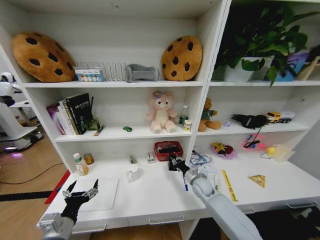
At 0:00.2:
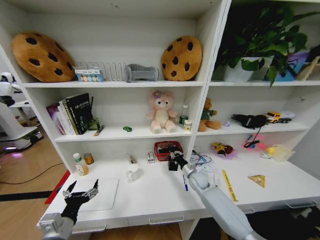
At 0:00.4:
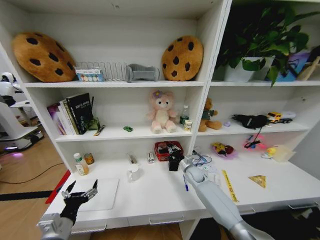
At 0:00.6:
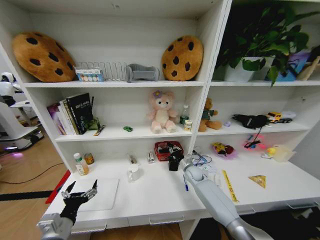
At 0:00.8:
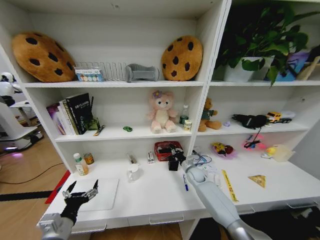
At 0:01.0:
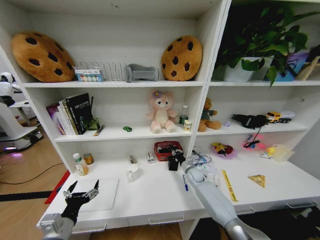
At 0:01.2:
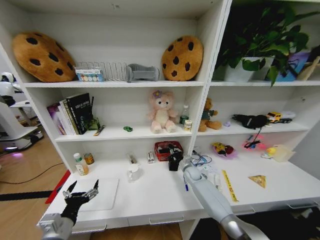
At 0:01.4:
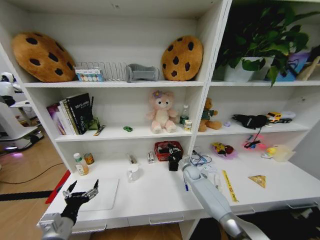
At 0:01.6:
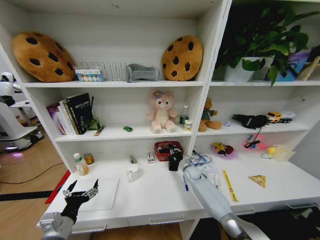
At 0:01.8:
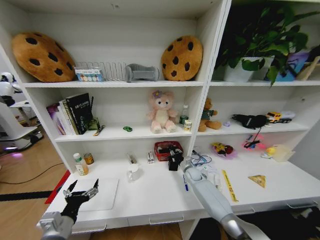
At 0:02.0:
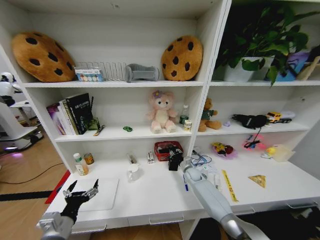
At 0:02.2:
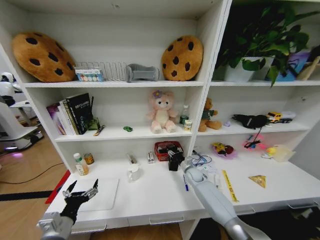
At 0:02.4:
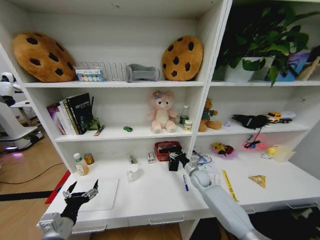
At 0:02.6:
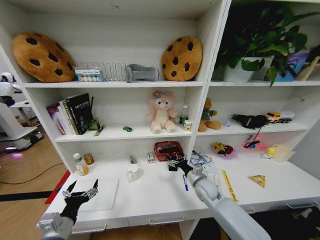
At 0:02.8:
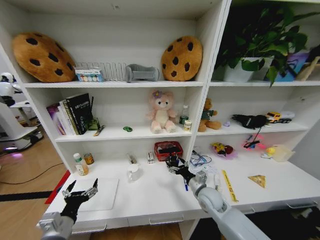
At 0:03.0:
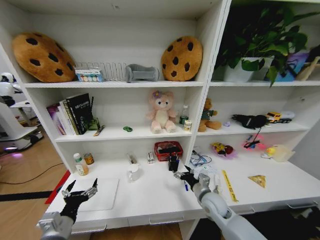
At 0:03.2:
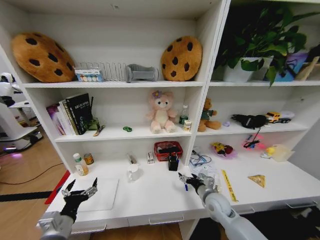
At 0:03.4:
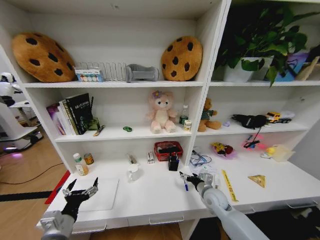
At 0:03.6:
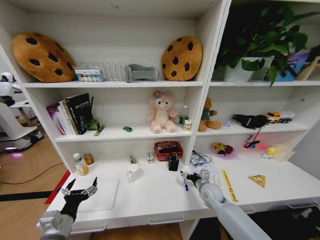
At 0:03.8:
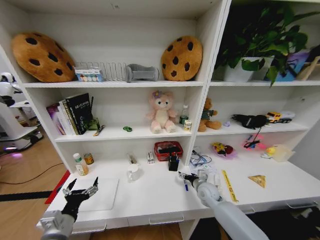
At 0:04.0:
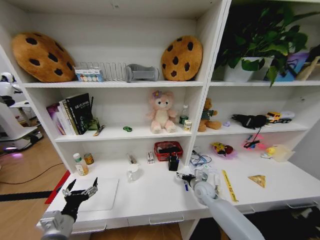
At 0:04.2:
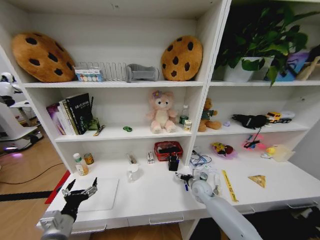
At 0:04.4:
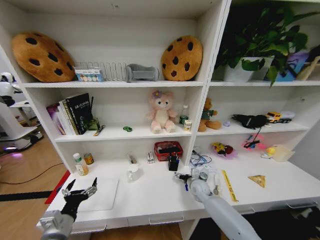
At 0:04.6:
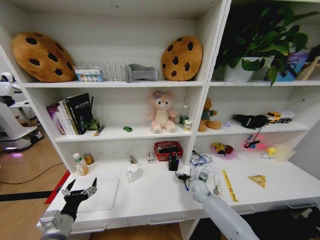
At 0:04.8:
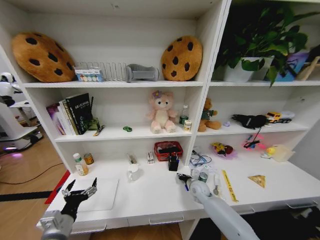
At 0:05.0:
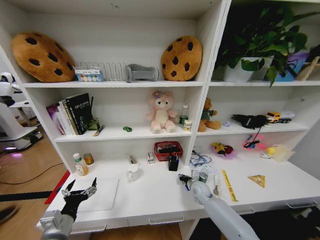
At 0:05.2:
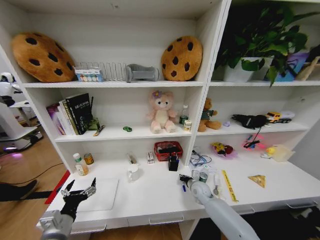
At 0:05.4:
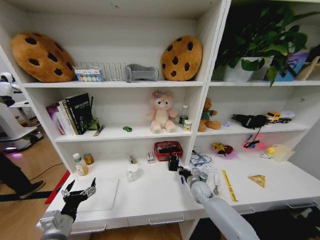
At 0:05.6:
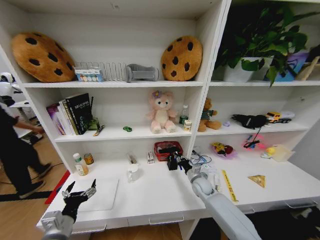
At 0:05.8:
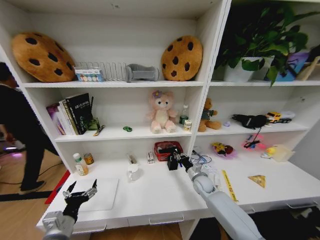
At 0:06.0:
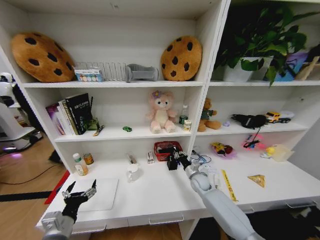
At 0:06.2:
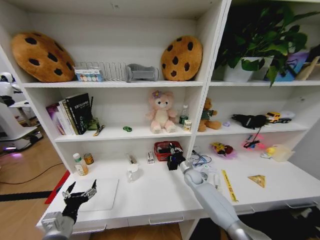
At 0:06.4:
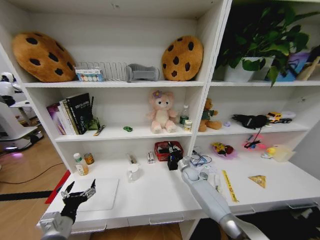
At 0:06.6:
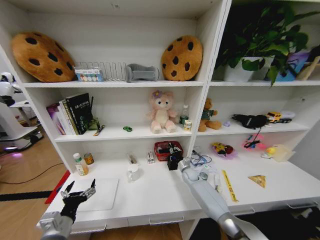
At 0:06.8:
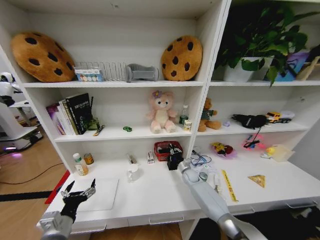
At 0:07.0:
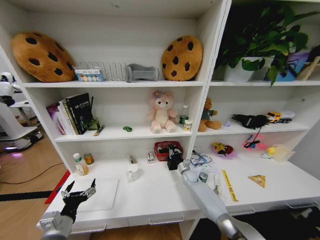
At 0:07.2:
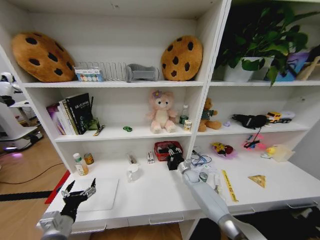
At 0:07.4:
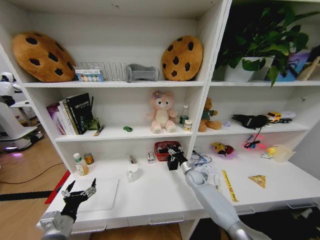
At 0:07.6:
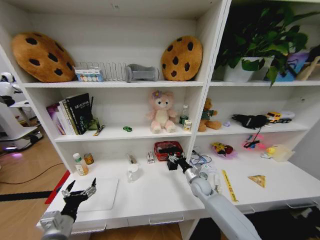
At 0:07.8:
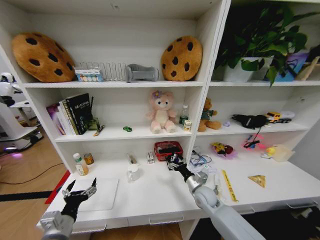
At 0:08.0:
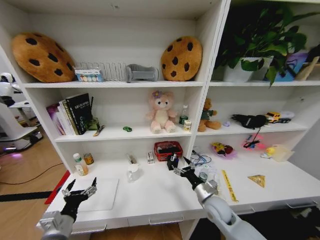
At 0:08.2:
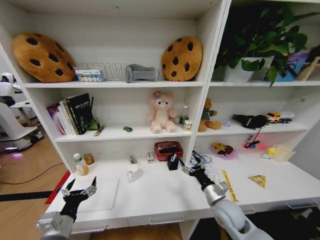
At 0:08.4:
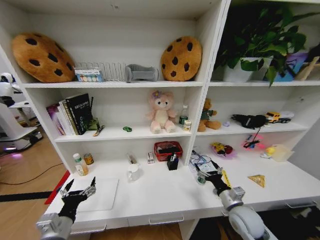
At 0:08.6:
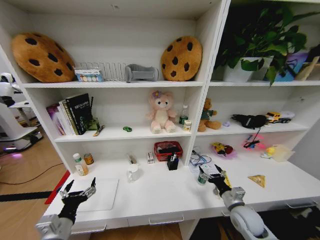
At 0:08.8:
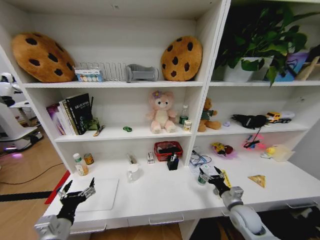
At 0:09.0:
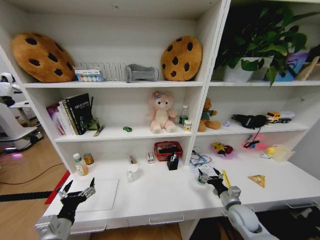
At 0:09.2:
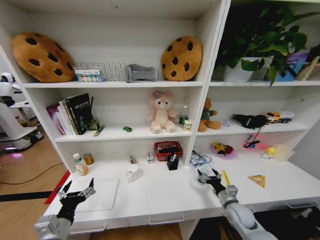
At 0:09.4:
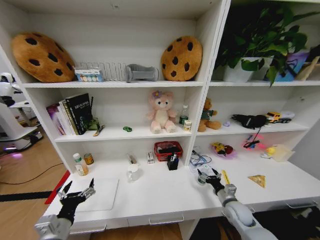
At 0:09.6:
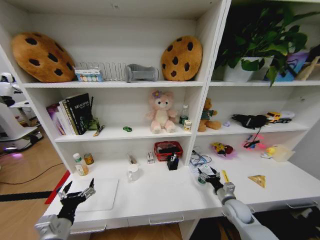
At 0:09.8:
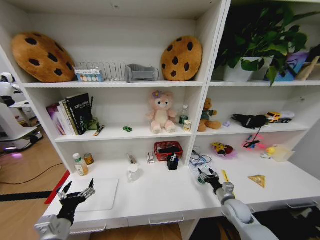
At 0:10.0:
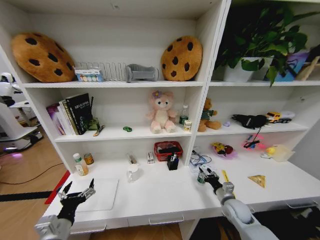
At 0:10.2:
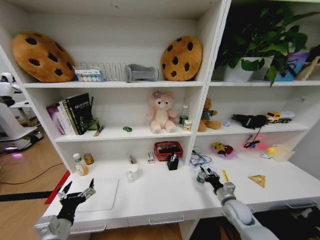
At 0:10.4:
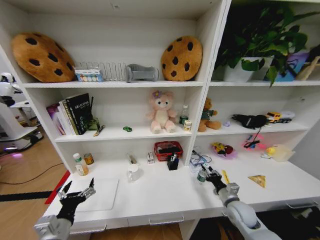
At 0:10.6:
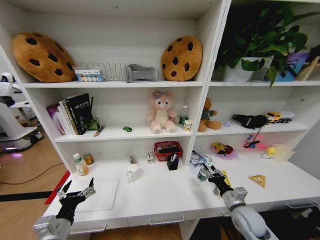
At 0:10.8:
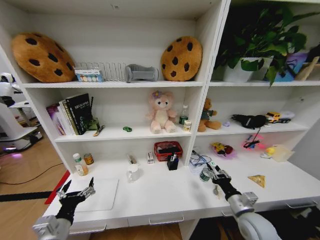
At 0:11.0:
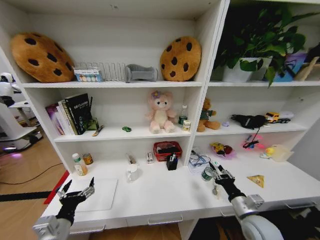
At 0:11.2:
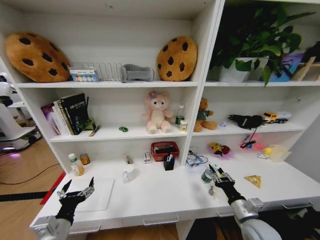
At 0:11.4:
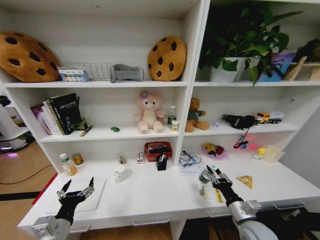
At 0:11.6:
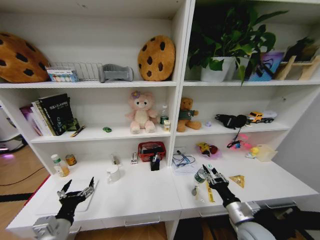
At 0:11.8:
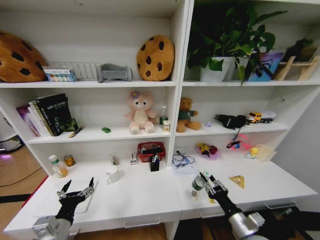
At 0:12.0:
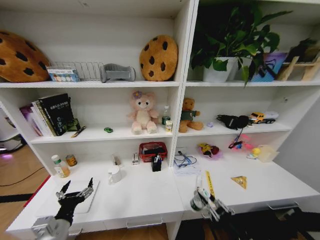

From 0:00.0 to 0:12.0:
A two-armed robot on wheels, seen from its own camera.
Task of the whole recording: Organize the objects on the table.
From 0:00.0 to 0:01.6: The right gripper goes approximately 10 cm forward.
From 0:01.6 to 0:03.0: The right gripper travels backward by approximately 20 cm, and opens its fingers.
From 0:03.0 to 0:04.4: The right gripper shifts approximately 10 cm forward and downward.
From 0:04.4 to 0:06.0: The right gripper closes its fingers.
From 0:06.0 to 0:07.6: The right gripper opens its fingers.
From 0:07.6 to 0:09.0: The right gripper is displaced backward and to the right by approximately 20 cm.
From 0:09.0 to 0:10.4: The right gripper closes up.
From 0:10.4 to 0:12.0: The right gripper travels backward by some 15 cm.

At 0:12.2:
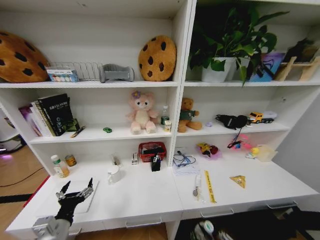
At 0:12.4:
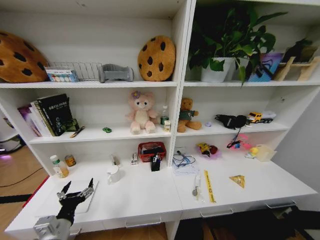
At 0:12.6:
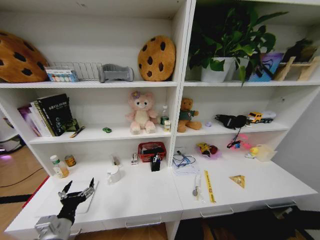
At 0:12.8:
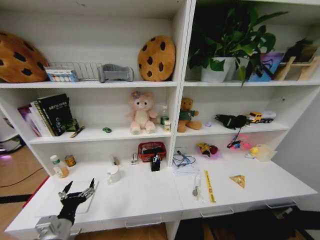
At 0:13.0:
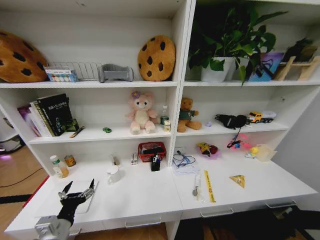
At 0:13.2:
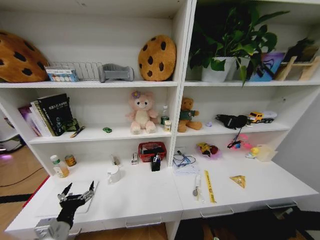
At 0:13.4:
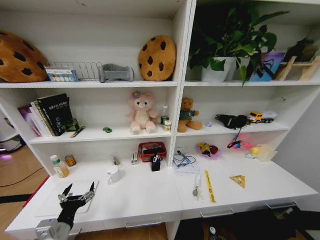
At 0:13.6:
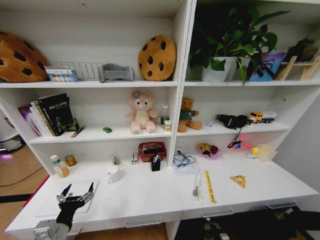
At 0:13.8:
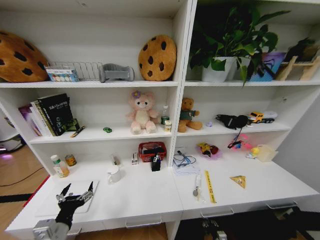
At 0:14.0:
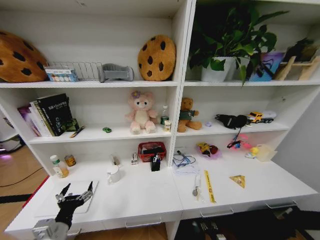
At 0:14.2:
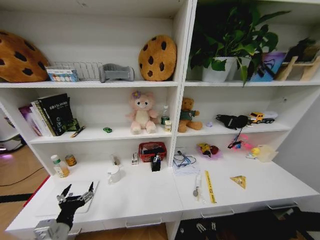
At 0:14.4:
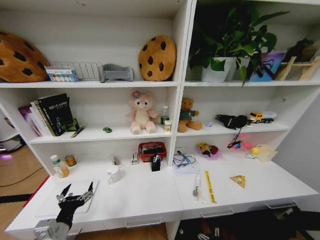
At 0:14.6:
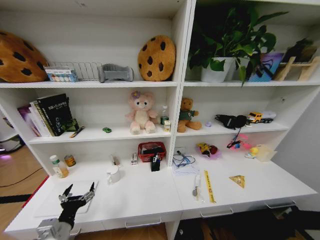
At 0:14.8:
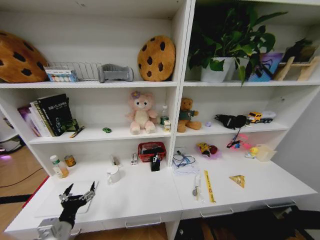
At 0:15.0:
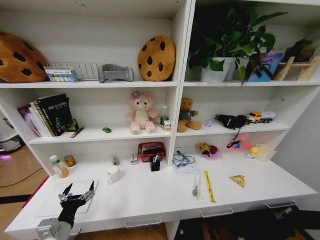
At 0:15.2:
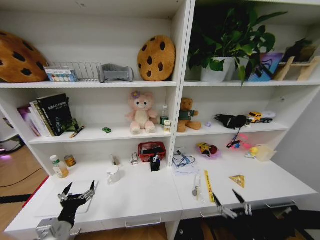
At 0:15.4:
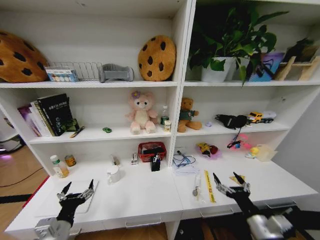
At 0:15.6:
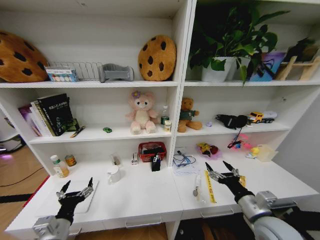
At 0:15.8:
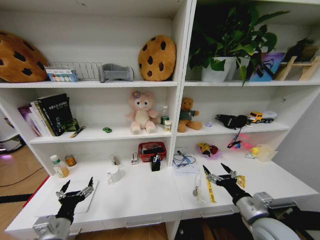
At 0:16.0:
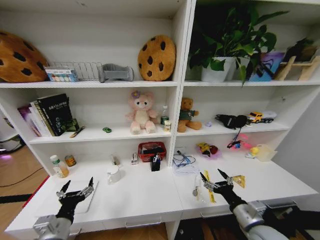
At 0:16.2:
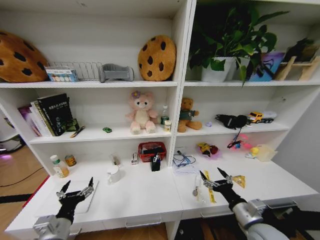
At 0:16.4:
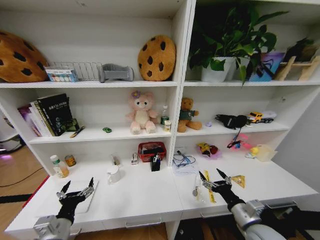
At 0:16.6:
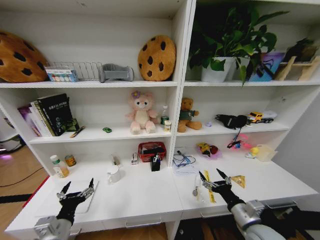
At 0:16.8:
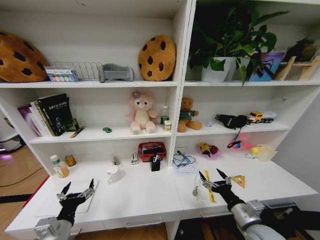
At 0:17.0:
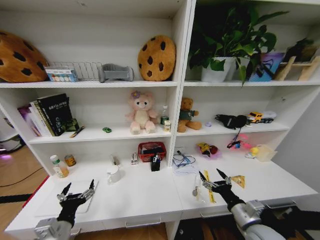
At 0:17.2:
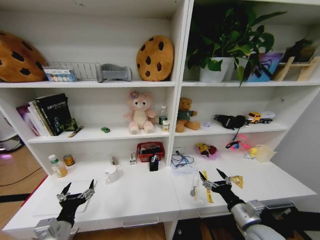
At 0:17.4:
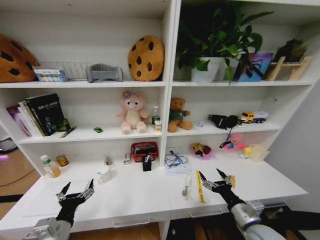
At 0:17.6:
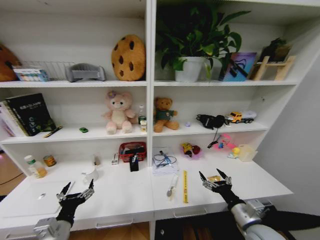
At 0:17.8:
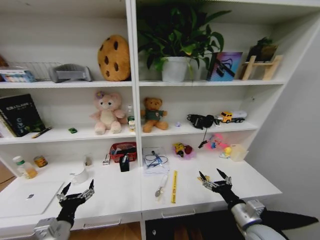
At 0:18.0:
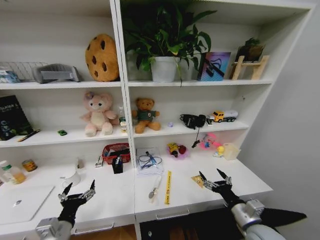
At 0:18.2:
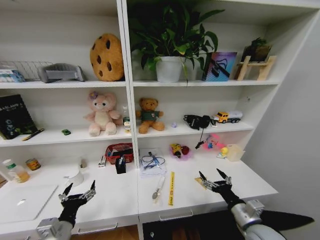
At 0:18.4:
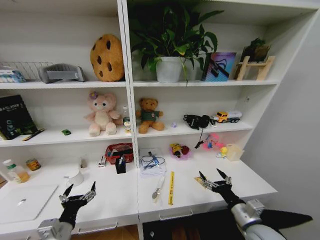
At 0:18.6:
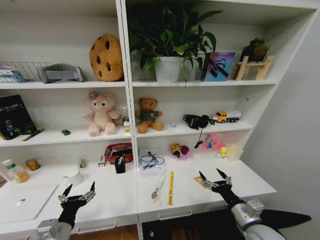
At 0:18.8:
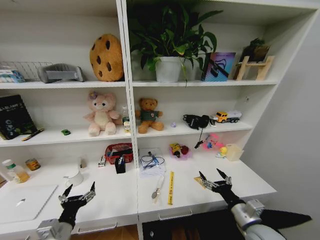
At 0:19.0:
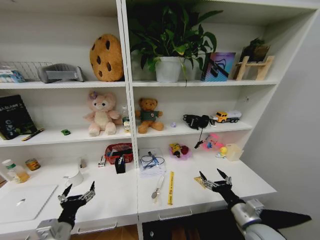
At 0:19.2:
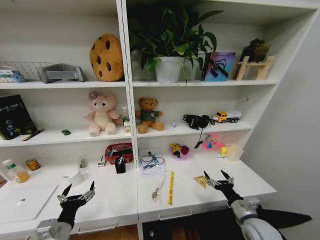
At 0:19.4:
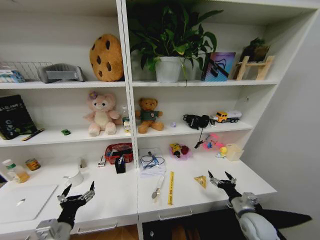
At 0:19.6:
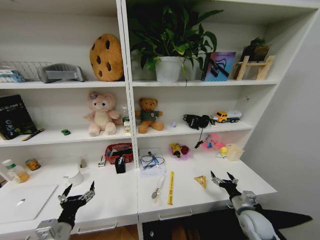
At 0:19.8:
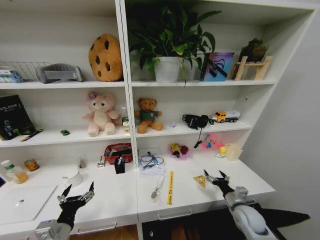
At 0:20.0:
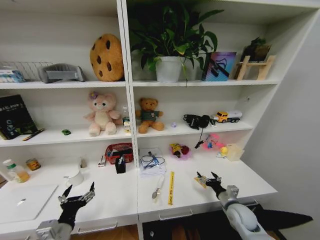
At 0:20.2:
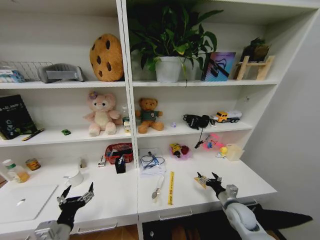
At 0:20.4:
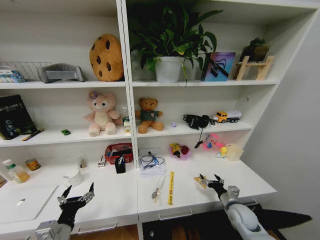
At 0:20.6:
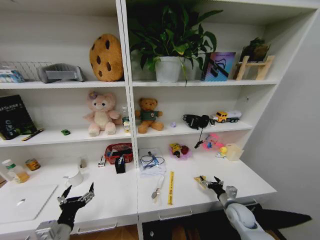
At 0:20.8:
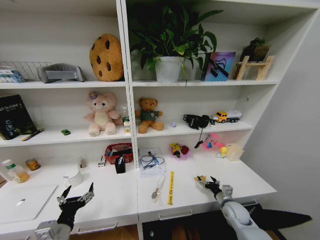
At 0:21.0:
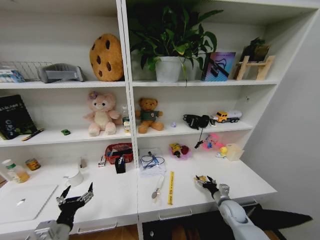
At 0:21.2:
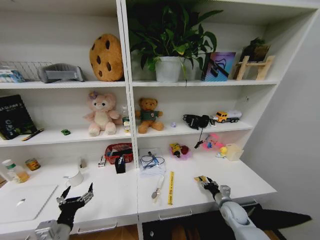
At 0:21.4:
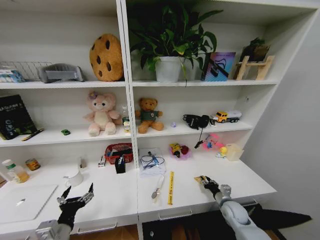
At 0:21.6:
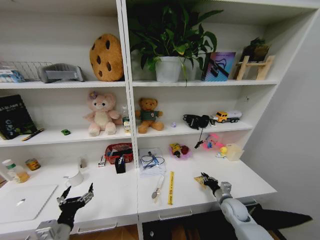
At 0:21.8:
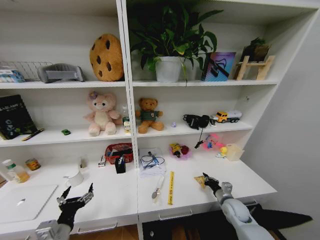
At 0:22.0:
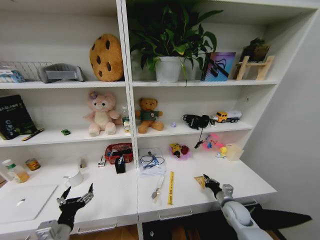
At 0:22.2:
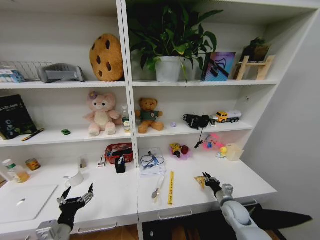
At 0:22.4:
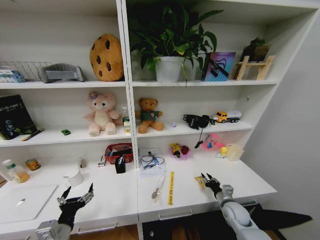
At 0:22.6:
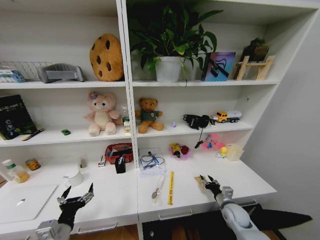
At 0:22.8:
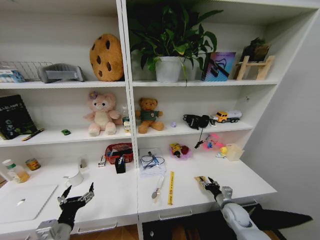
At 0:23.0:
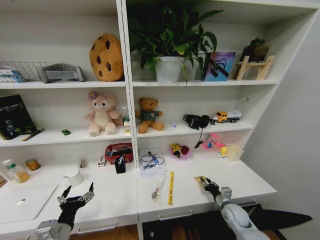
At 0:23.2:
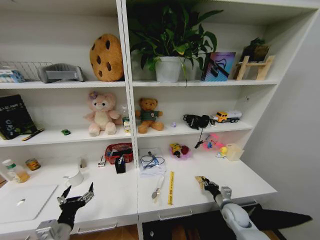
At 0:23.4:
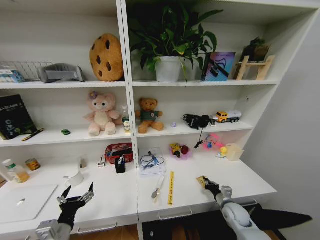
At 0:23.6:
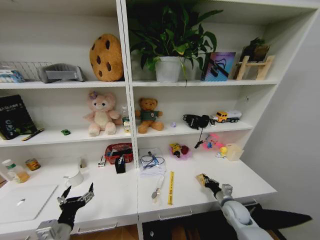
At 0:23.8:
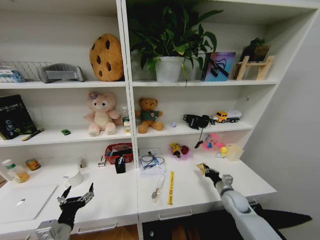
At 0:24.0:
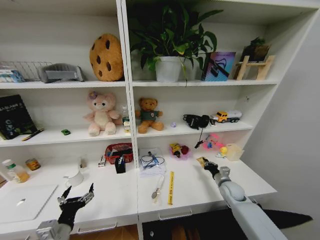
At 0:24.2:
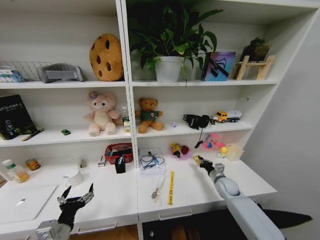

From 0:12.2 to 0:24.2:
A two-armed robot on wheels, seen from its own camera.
Task of the whole recording: Organize the objects on the table.
From 0:12.2 to 0:13.8: The right gripper shifts approximately 35 cm downward and forward.
From 0:13.8 to 0:15.2: The right gripper shifts some 30 cm upward, and opens.
From 0:15.2 to 0:16.6: The right gripper is displaced forward and upward by some 10 cm.
From 0:18.2 to 0:19.8: The right gripper is displaced downward, forward and to the right by roughly 15 cm.
From 0:19.8 to 0:21.2: The right gripper is displaced downward by about 5 cm, and closes up.
From 0:21.2 to 0:22.6: The right gripper closes, then opens again.
From 0:22.6 to 0:24.2: The right gripper shifts approximately 10 cm forward, and closes.
